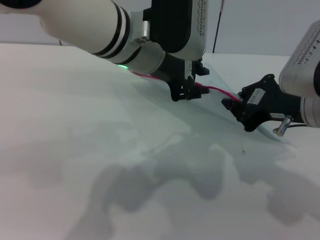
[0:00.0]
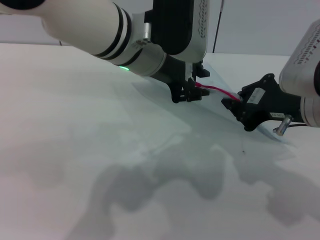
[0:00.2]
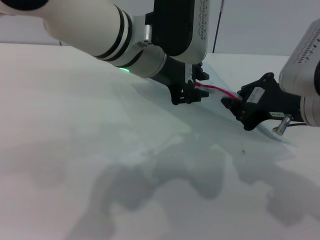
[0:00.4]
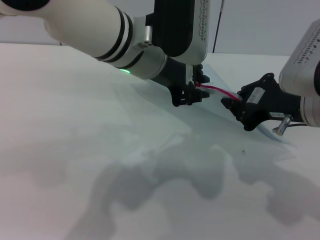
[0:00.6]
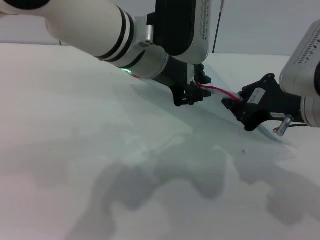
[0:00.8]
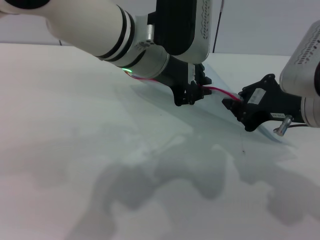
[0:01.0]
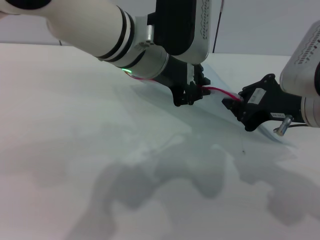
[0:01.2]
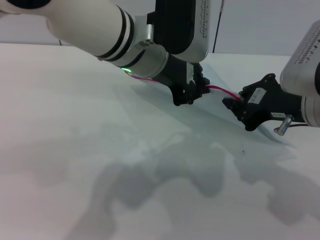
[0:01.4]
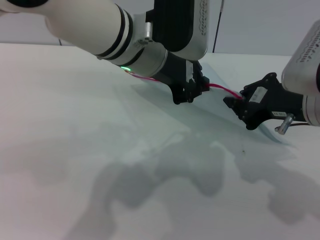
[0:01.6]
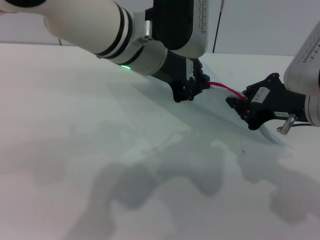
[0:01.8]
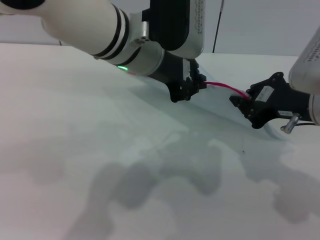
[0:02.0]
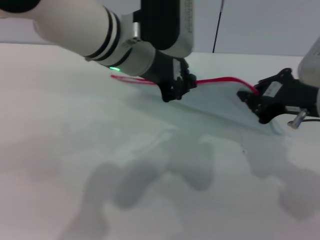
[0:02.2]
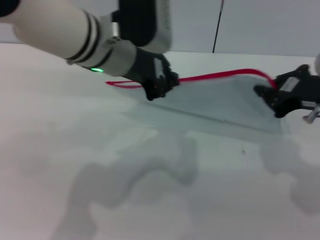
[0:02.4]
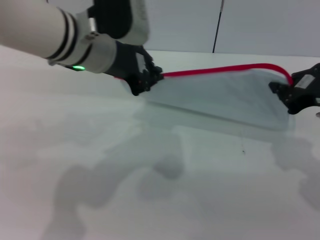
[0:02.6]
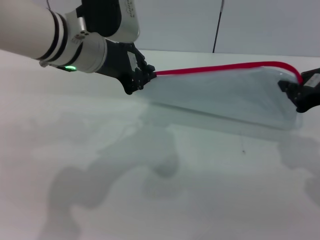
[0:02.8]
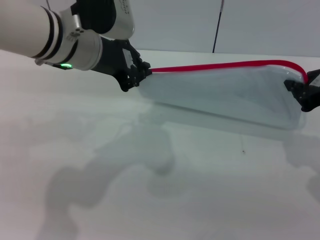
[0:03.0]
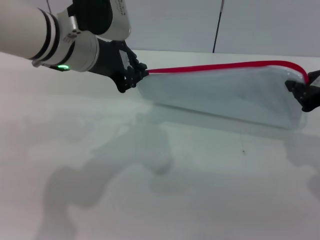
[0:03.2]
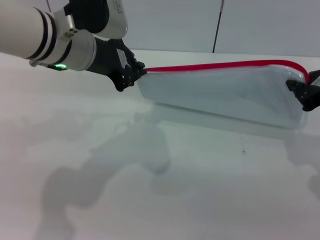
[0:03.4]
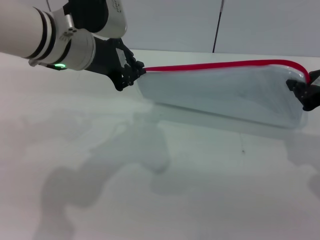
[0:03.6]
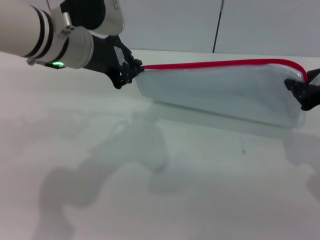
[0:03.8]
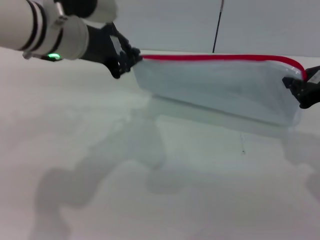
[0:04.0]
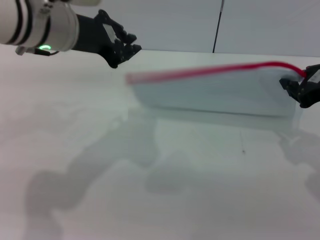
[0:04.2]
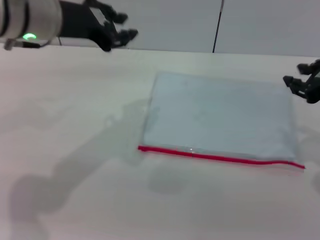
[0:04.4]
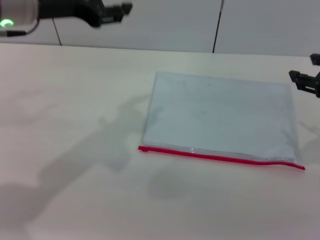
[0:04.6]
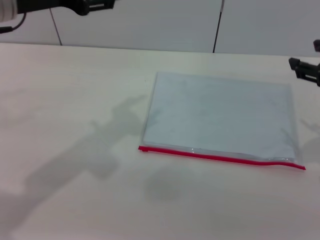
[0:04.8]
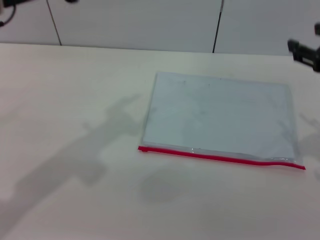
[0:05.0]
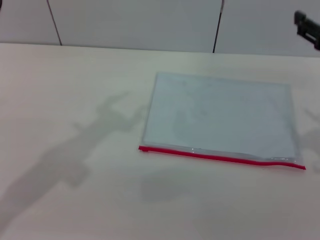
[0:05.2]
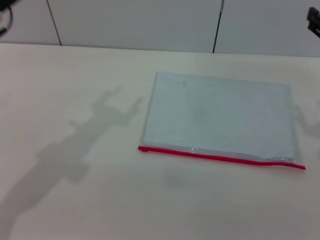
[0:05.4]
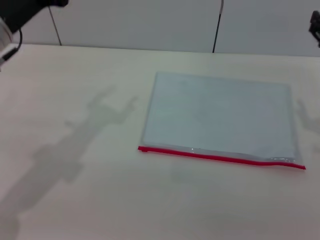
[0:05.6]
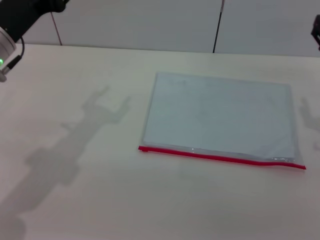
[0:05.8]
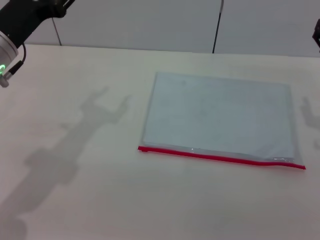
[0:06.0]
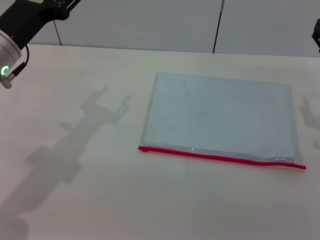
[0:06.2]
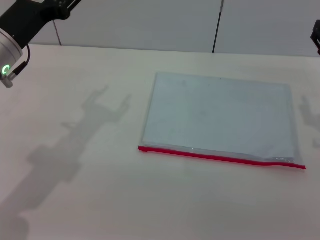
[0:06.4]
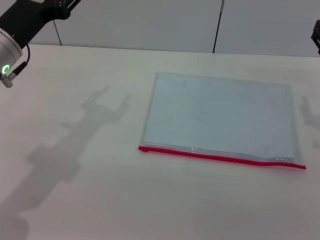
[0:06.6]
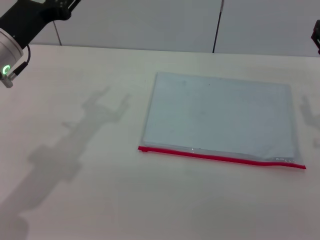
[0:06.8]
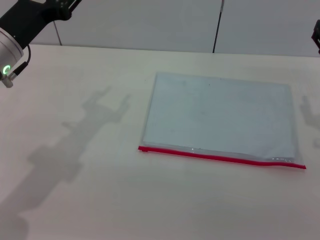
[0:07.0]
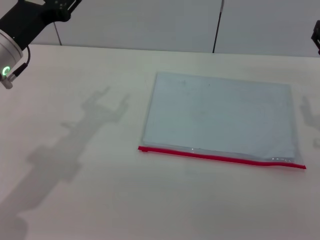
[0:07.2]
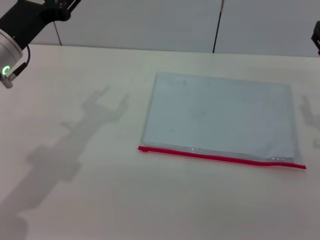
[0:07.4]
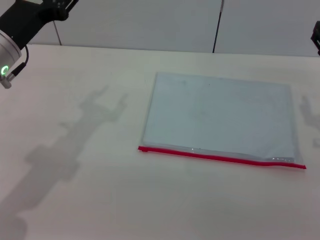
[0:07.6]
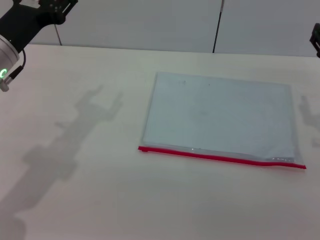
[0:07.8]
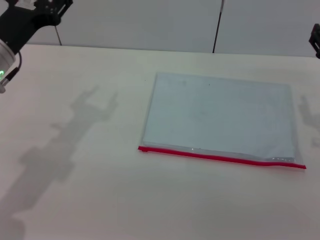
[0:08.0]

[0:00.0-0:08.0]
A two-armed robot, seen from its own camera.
Step, 0:00.0 to 0:04.4: Pulling up the zipper on the transparent plastic bag with the left gripper to close it.
Step, 0:04.6 to 0:05.6: Place the transparent plastic bag.
0:00.0 to 0:01.6: The left gripper closes its fingers.
0:01.6 to 0:03.2: The right gripper shifts roughly 5 cm to the right, while the left gripper is displaced to the left by approximately 10 cm.
0:03.2 to 0:04.8: The right gripper opens; the left gripper moves to the left, about 10 cm, and opens.
0:04.8 to 0:06.4: Both grippers move downward, some 10 cm.
0:06.4 to 0:08.0: The grippers stay close to where they were, moving slightly.
